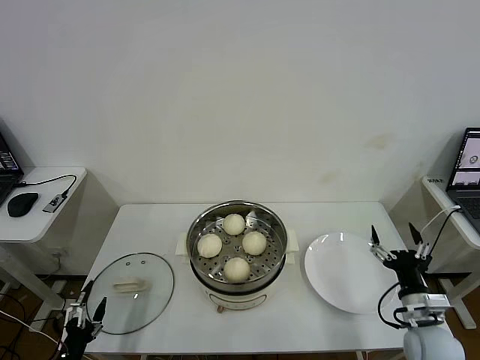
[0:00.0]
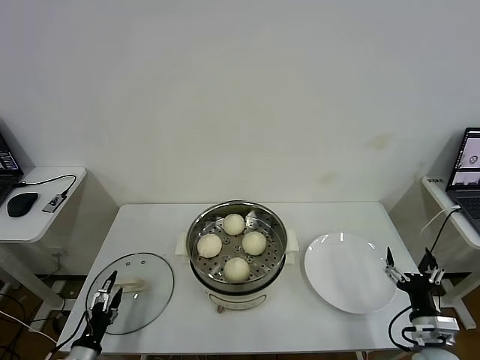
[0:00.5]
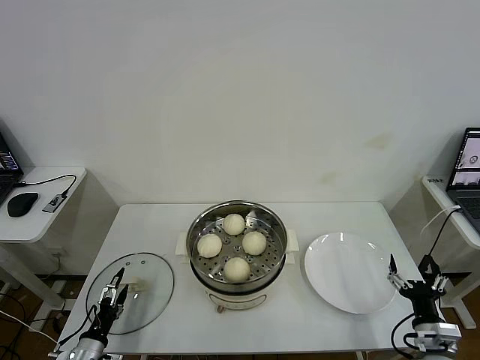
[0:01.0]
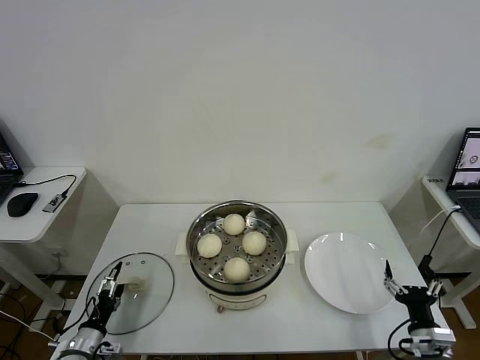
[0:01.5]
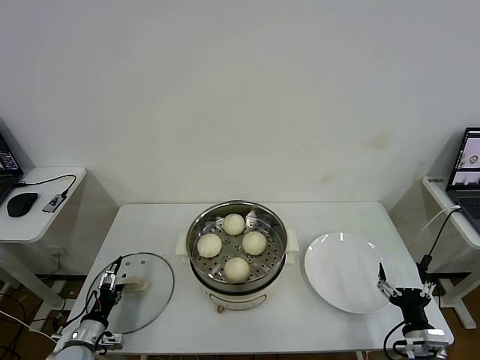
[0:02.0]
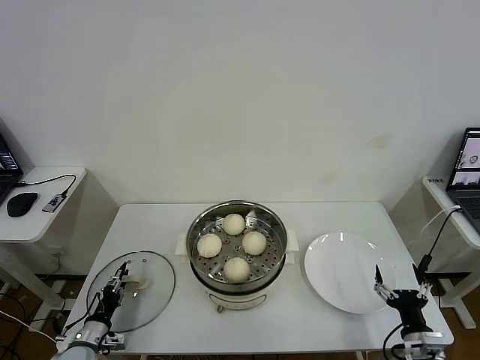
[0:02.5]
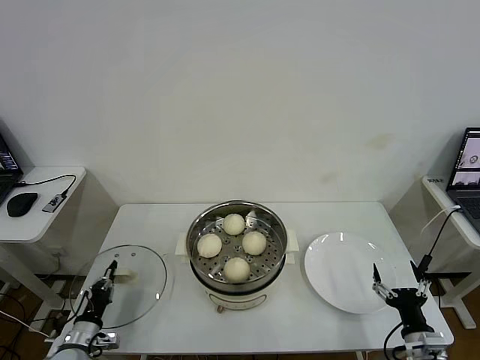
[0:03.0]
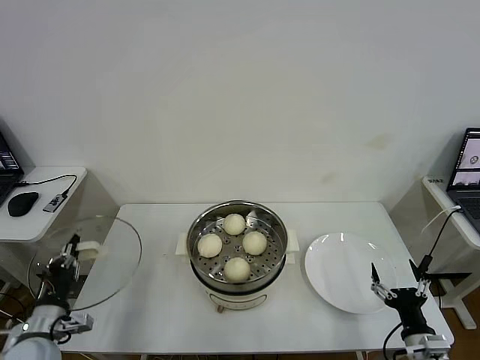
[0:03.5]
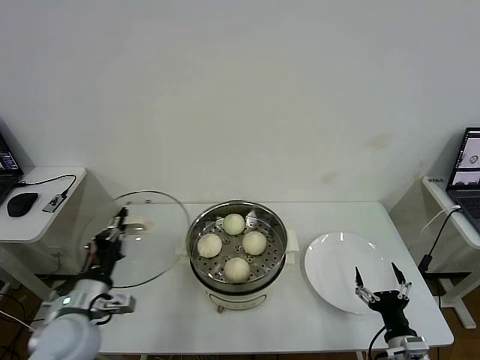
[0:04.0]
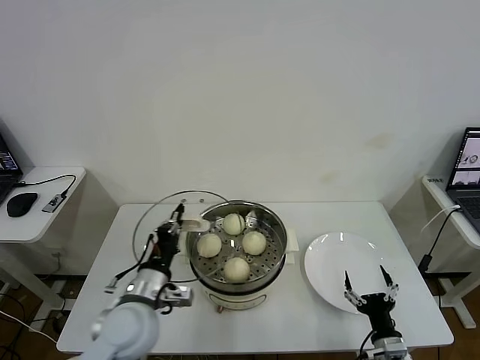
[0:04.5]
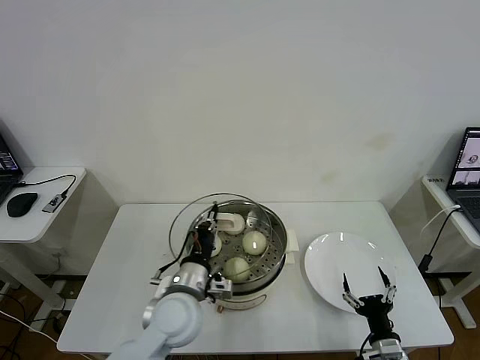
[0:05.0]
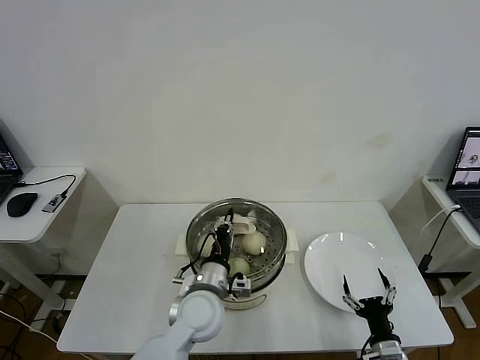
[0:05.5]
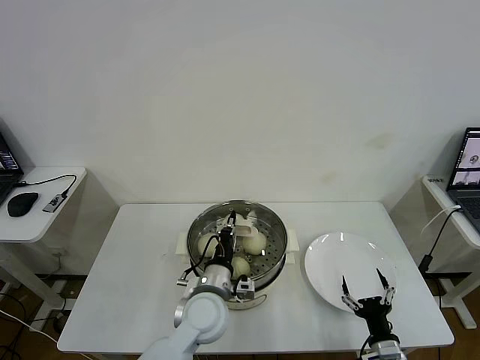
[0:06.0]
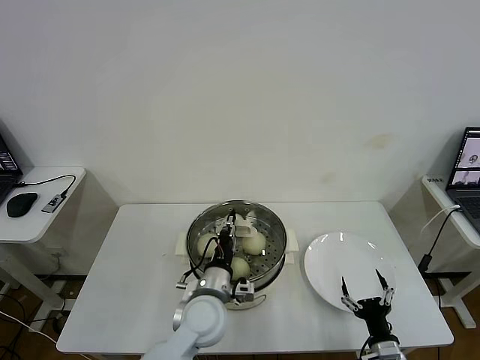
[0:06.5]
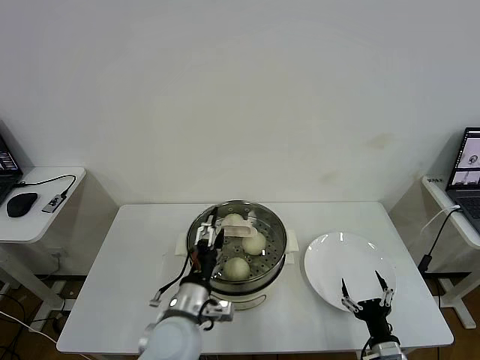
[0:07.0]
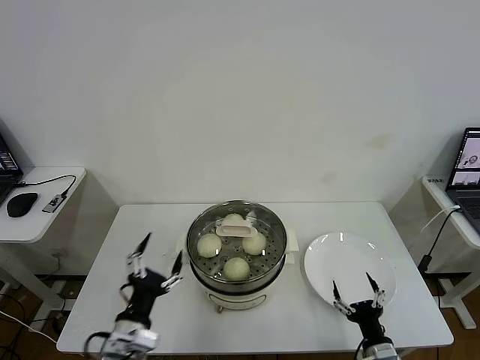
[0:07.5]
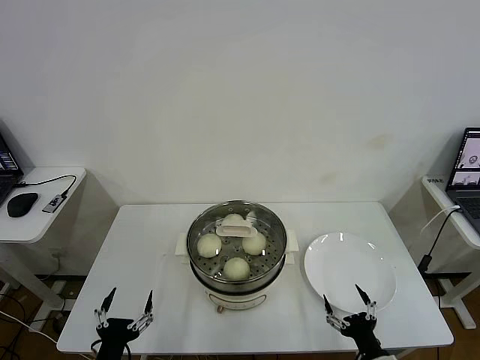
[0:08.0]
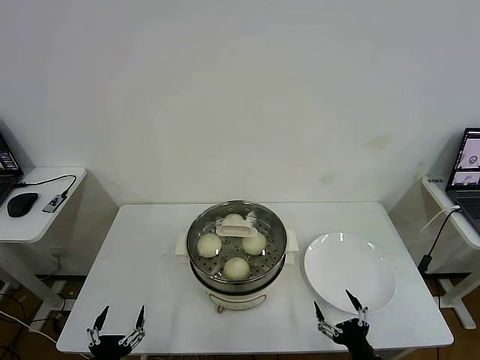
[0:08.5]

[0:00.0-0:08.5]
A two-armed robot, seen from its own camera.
Task of the whole recording: take steamed baozi put them in steamer then cover it.
Step, 0:00.0 to 0:02.5: Grasp the pot lid with left gripper.
Step, 0:03.0 to 0:07.0: Place the pot lid on the steamer with left gripper.
0:00.0 to 0:02.0: The right gripper heads backward and downward, covering about 10 cm, while the left gripper shifts approximately 15 cm forward and downward.
0:02.0 to 0:04.0: The left gripper moves upward and to the right, about 20 cm, and closes its fingers.
0:04.0 to 0:06.5: The left gripper moves to the right, approximately 25 cm.
0:06.5 to 0:08.5: The left gripper heads to the left and backward, covering some 30 cm, and opens; the right gripper moves roughly 5 cm.
